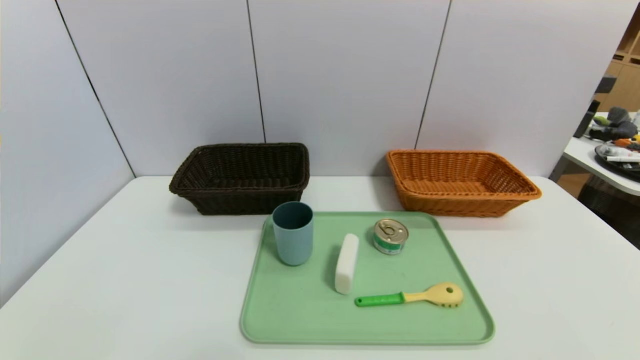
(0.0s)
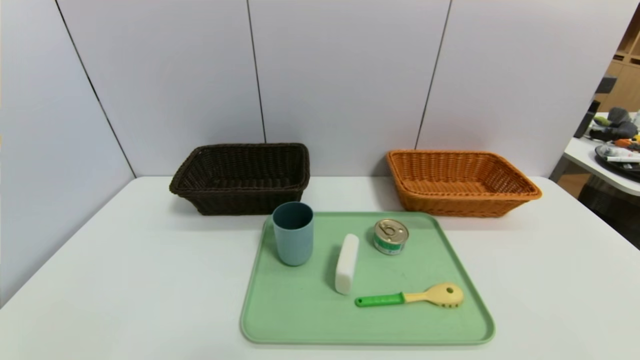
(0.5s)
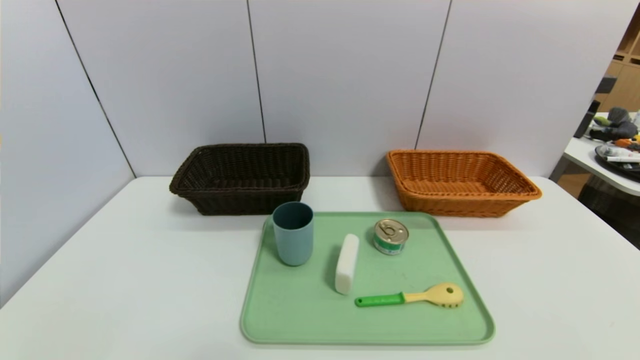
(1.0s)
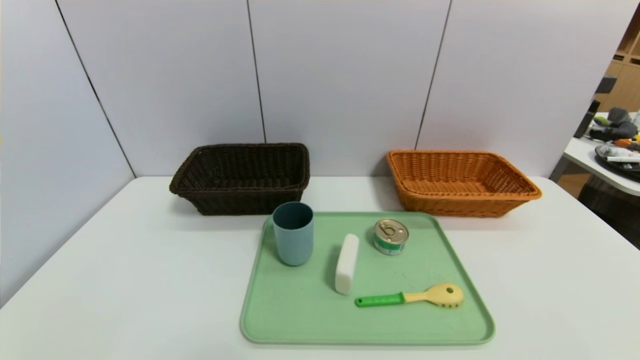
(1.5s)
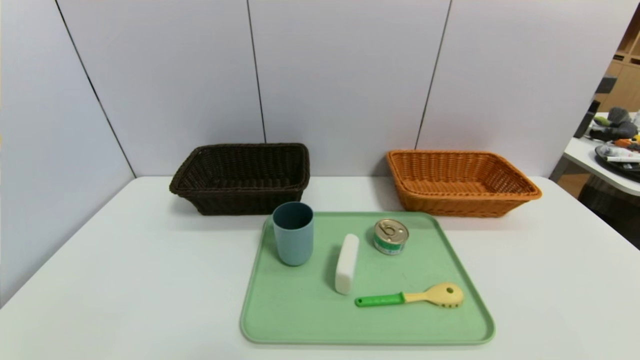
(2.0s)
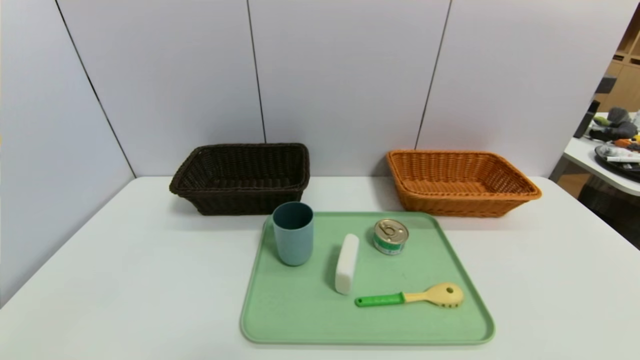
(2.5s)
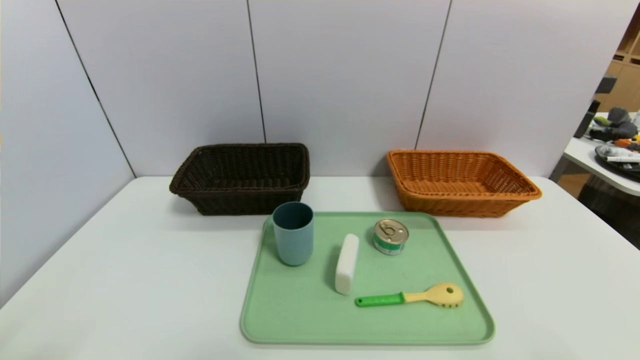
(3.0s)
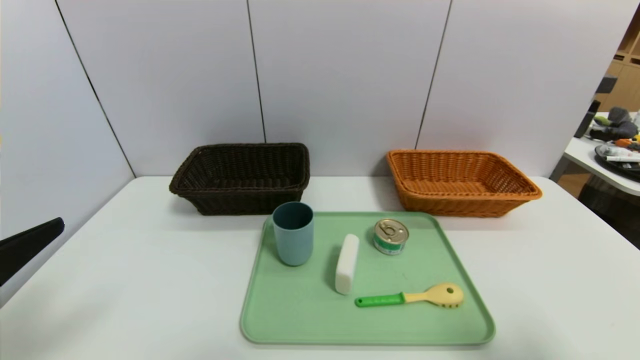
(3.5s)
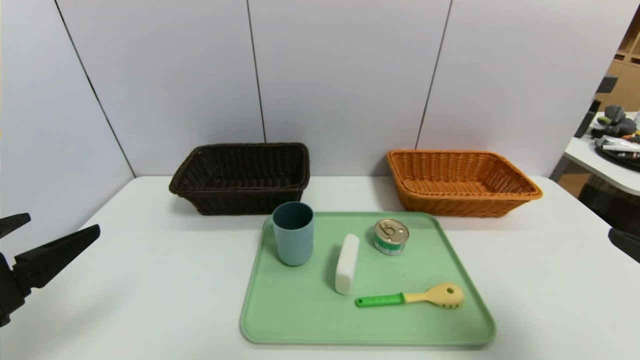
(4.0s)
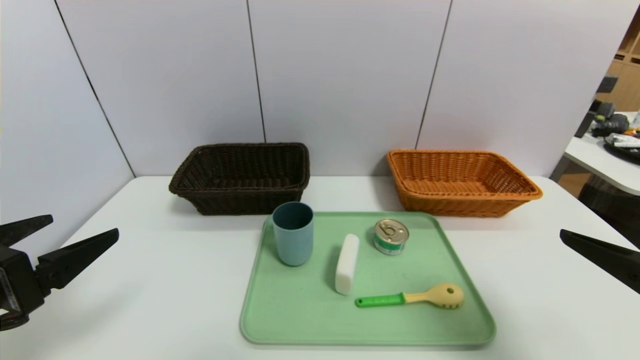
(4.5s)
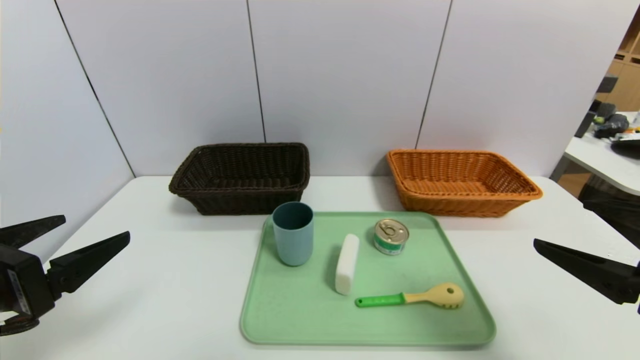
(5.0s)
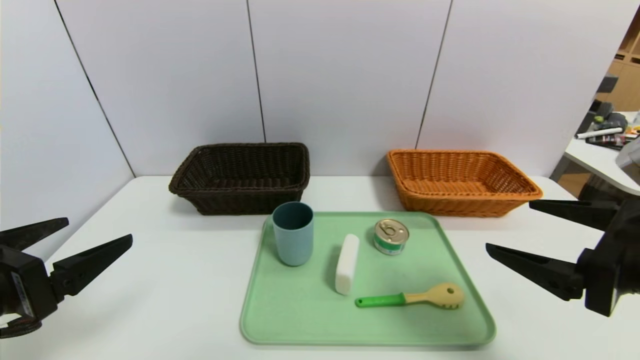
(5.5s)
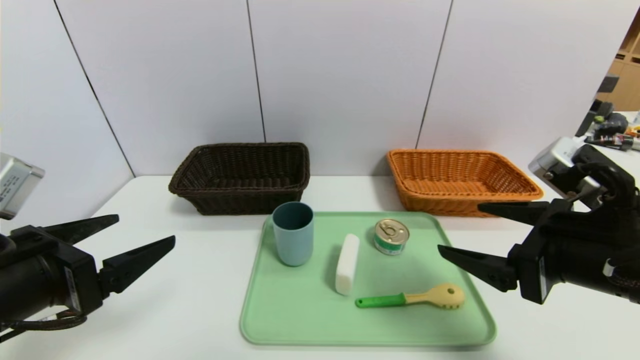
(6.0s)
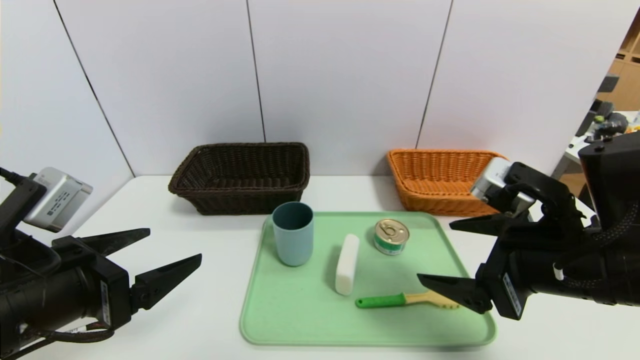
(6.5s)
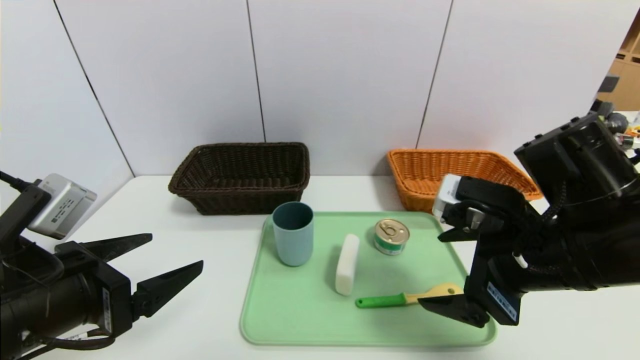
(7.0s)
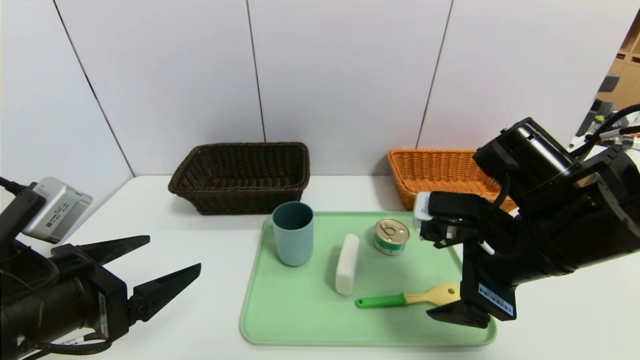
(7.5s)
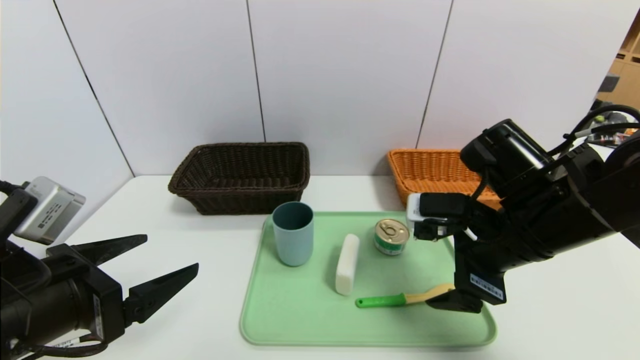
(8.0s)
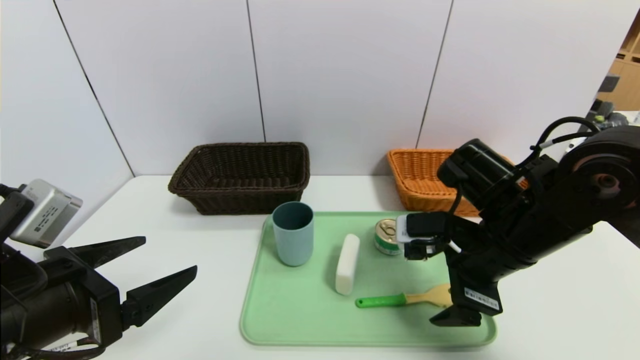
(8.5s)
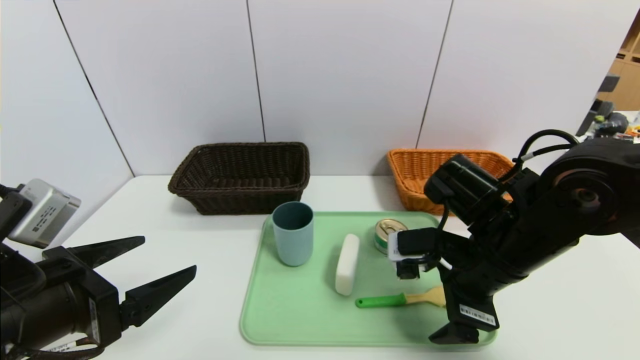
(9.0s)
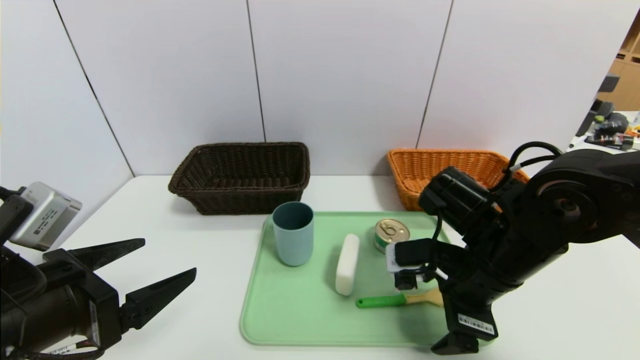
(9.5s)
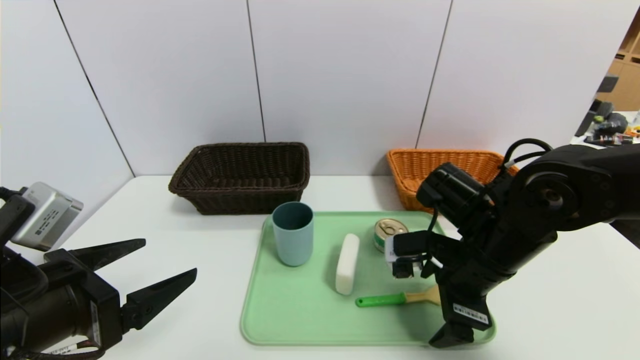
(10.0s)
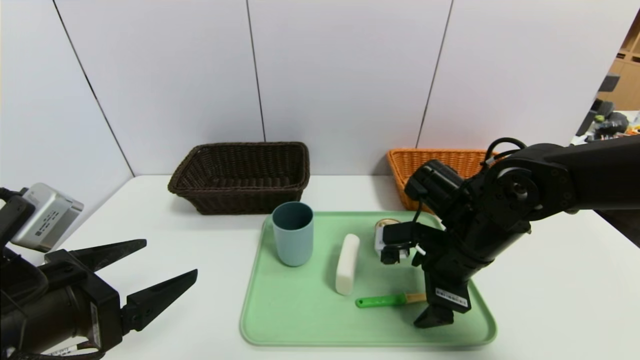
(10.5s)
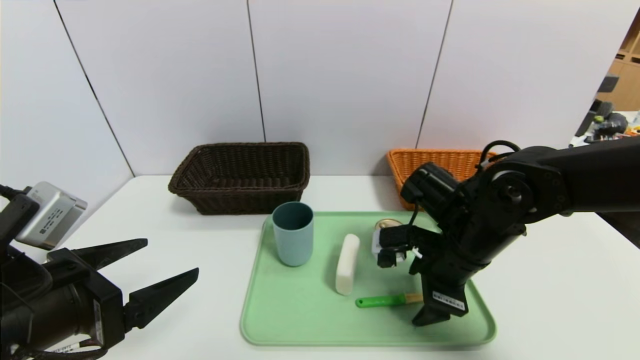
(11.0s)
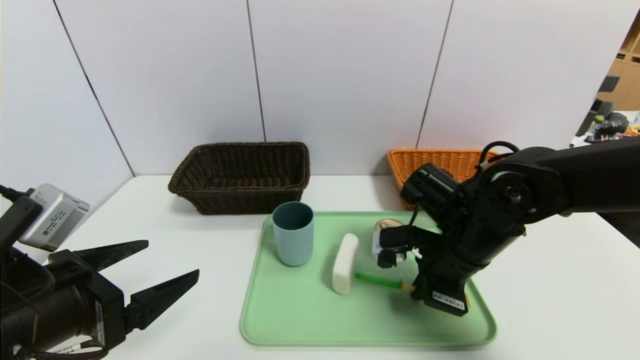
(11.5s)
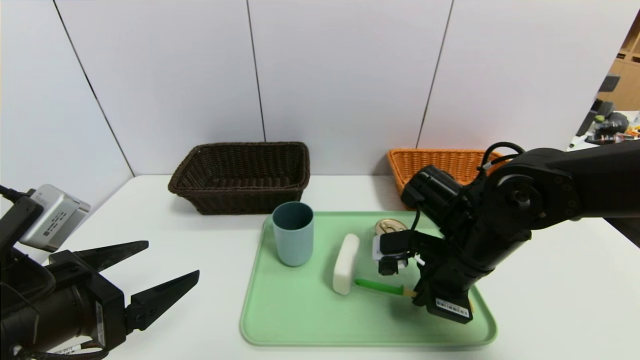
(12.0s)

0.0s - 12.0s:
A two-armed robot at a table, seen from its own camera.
Task of the whole recording: place the food in the right basket with the right gripper, and place the non food items in the left basket with the left gripper.
2.0s - 4.0s: Both grippers move upward and forward, about 20 cm.
4.0s - 6.0s: The left gripper shifts by approximately 5 cm, while the right gripper moves to the left and forward, some 10 cm.
6.0s - 8.0s: The right gripper shifts roughly 5 cm forward.
8.0s - 10.0s: The right gripper moves some 5 cm.
10.0s - 12.0s: The right gripper closes.

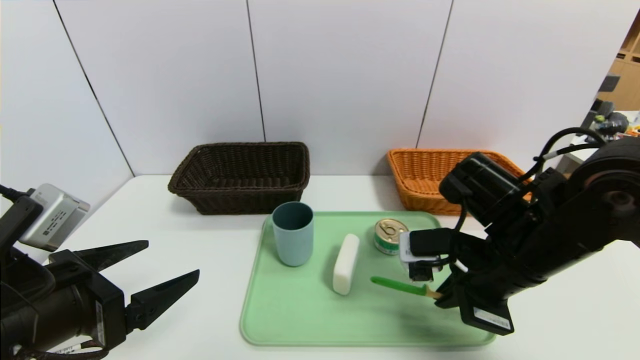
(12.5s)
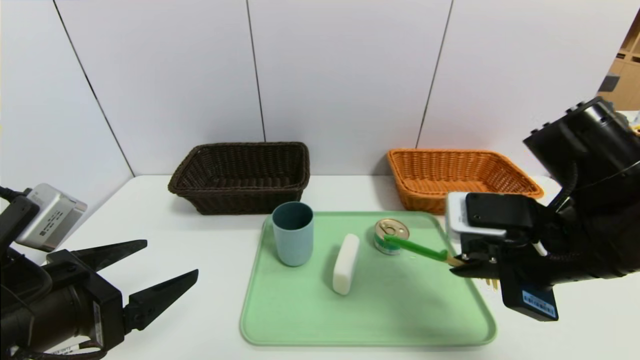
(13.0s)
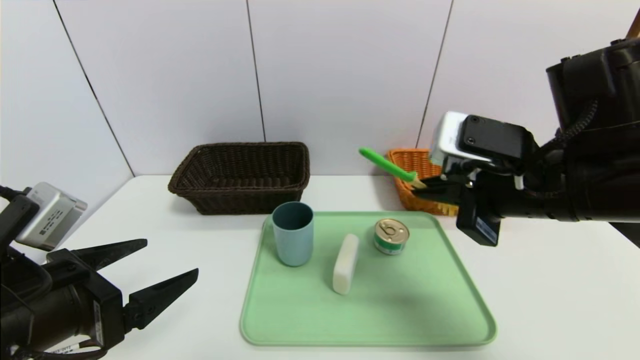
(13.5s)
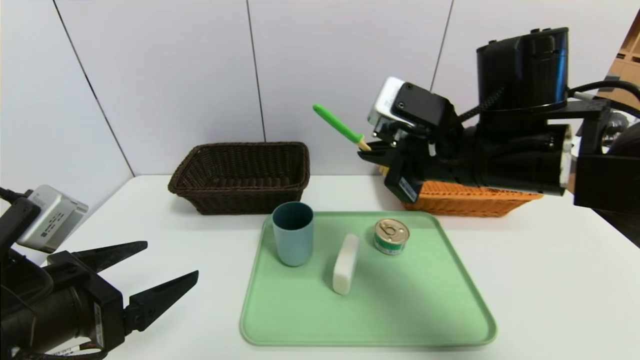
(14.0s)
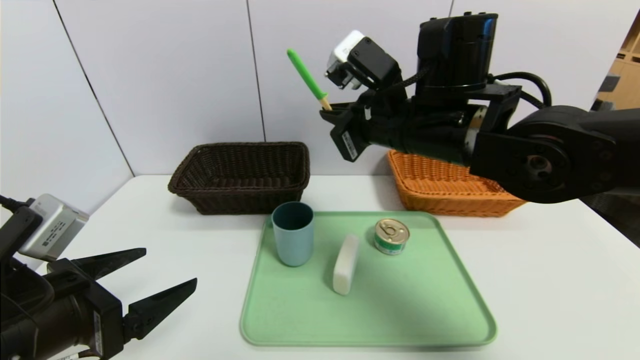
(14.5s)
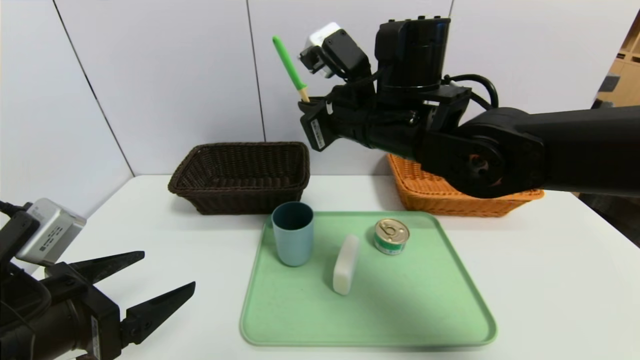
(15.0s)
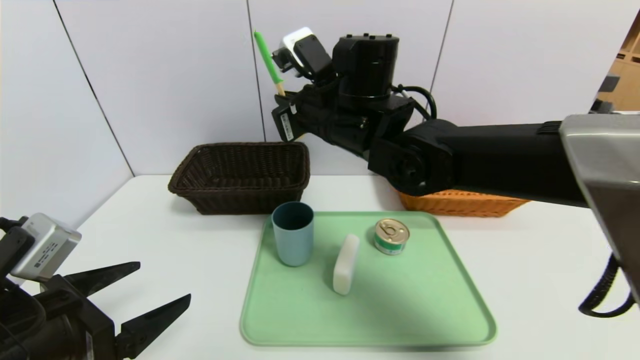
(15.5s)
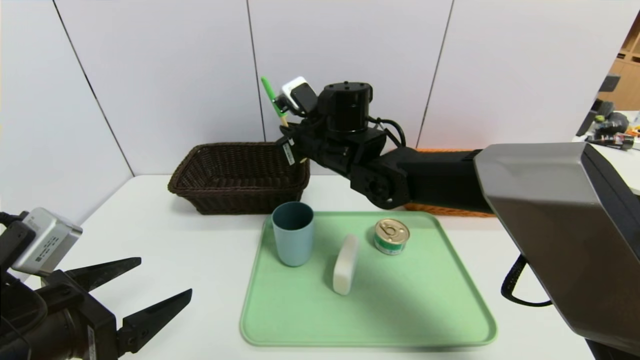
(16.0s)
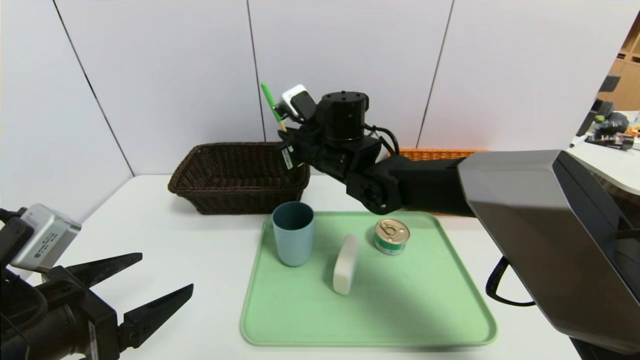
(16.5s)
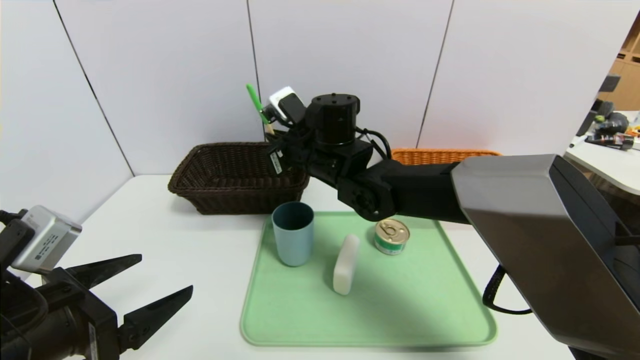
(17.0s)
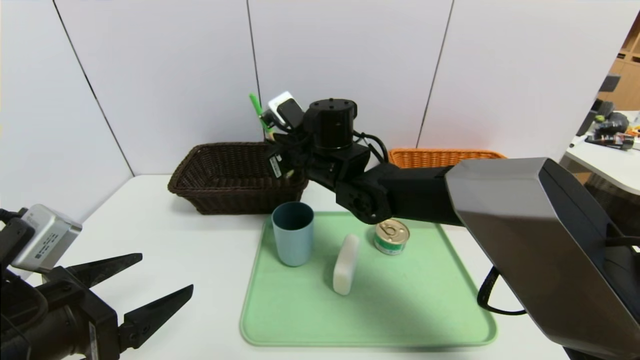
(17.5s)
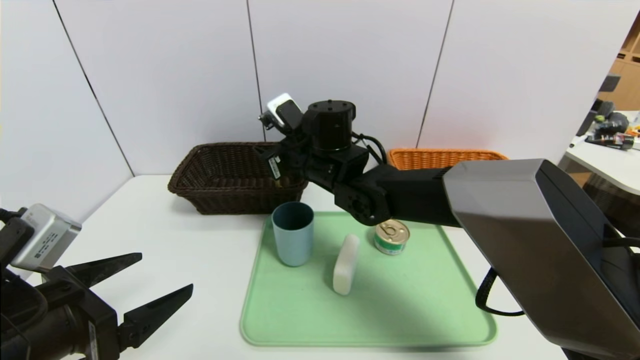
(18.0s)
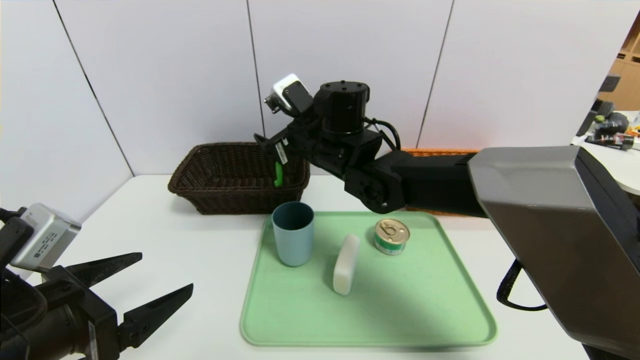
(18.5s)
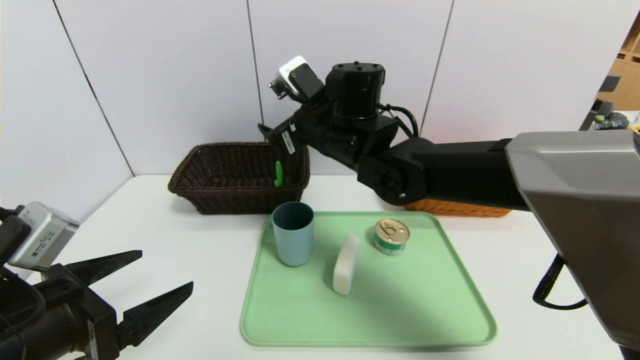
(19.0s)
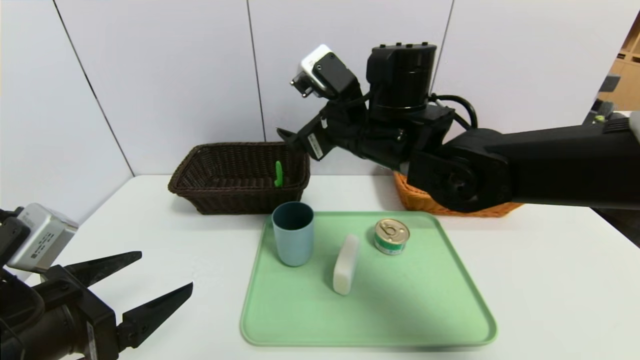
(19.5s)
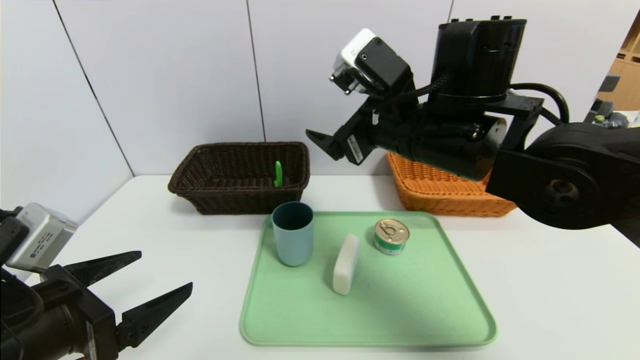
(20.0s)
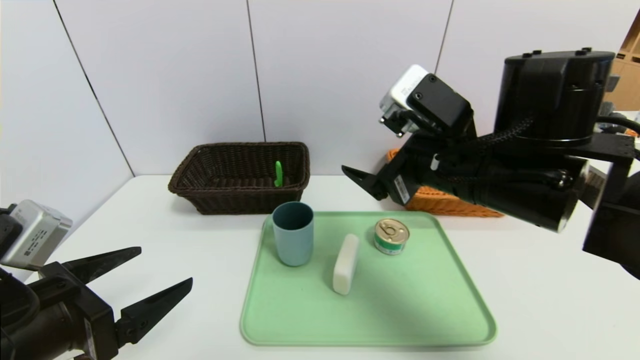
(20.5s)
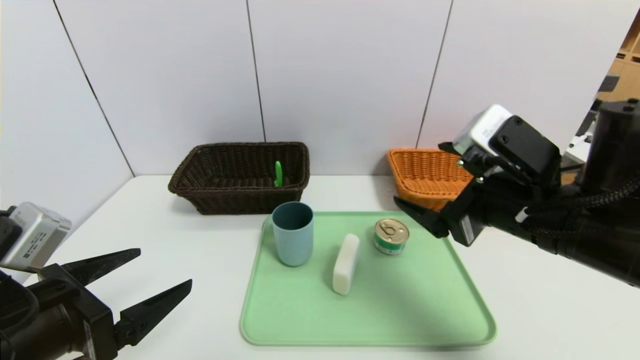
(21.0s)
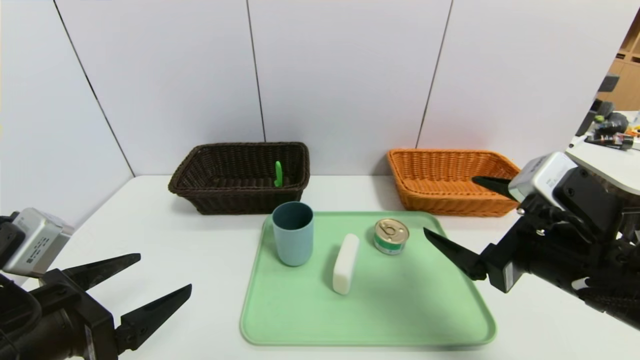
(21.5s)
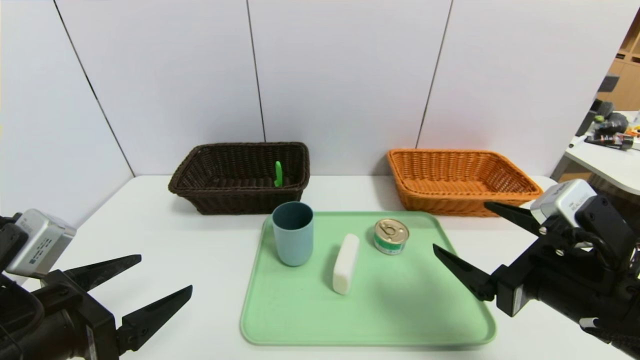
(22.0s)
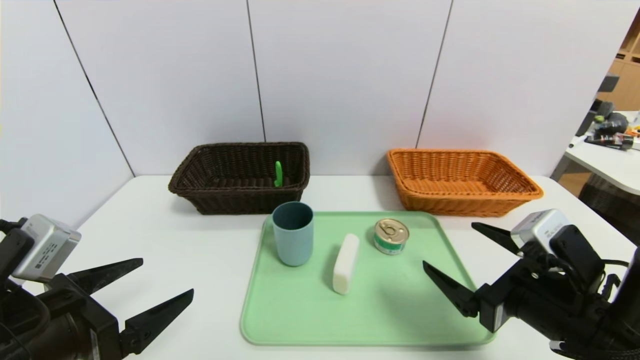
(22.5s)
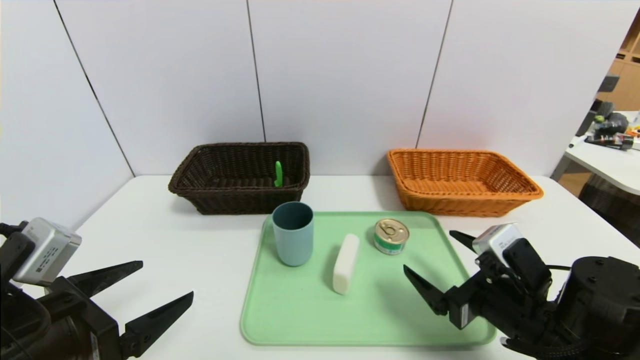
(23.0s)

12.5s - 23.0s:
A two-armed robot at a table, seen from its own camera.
Task of the whole recording: place the food in the right basket with the right gripper, and place the non food items in the left basket with the left gripper.
12.5s - 14.5s: The right gripper travels upward, to the left and forward by about 15 cm.
14.5s - 16.5s: The right gripper heads forward, to the left and downward, covering about 15 cm.
16.5s - 19.0s: The right gripper moves approximately 5 cm, and opens up.
19.0s - 21.0s: The right gripper is displaced to the right and backward by about 25 cm.
21.0s - 23.0s: The right gripper travels downward by approximately 15 cm.
